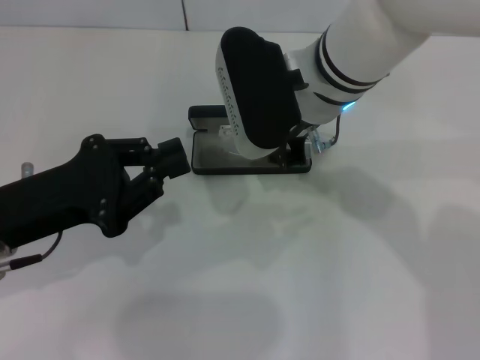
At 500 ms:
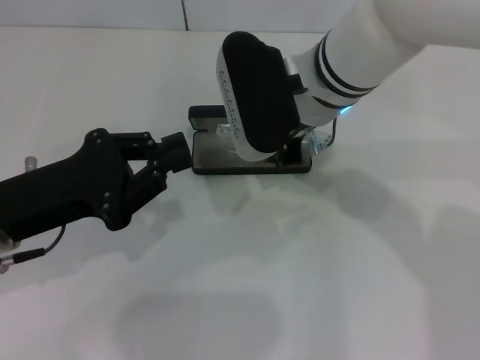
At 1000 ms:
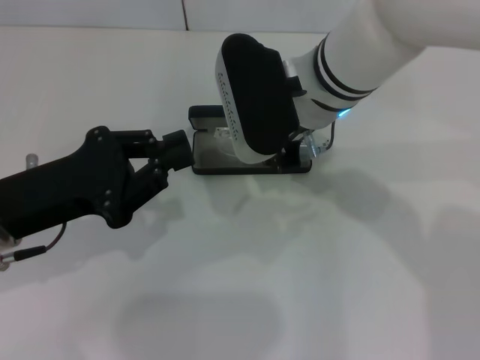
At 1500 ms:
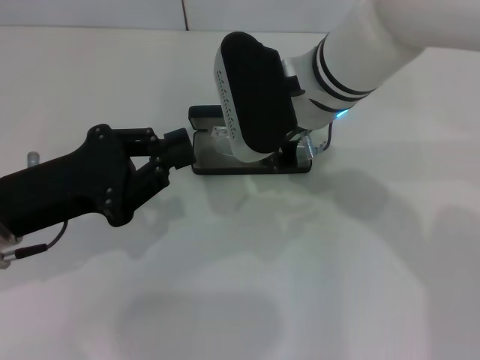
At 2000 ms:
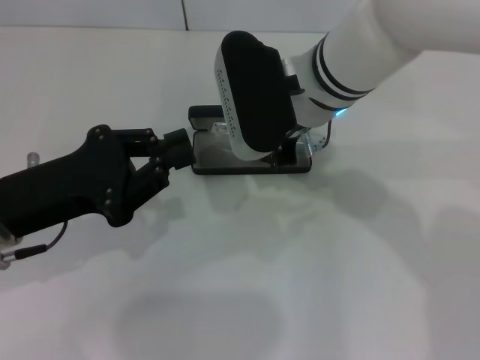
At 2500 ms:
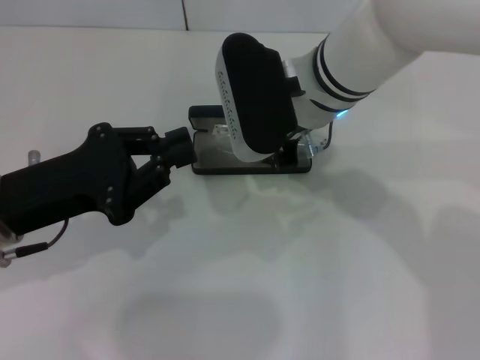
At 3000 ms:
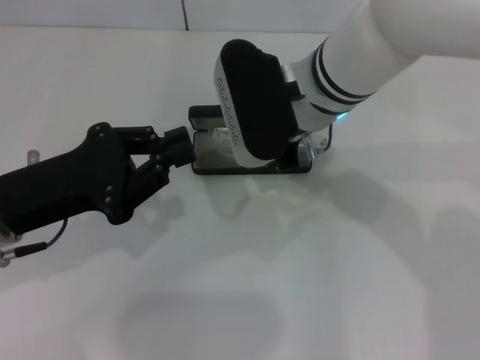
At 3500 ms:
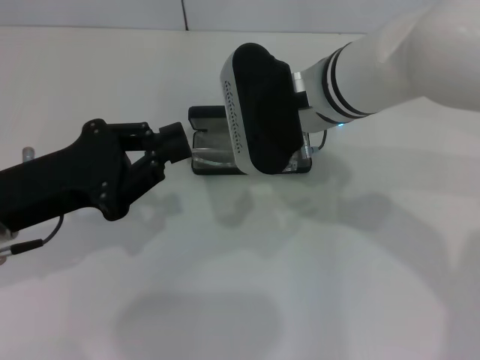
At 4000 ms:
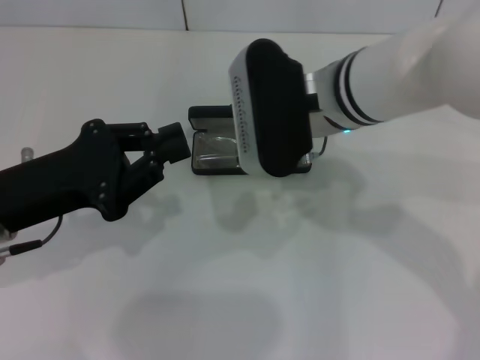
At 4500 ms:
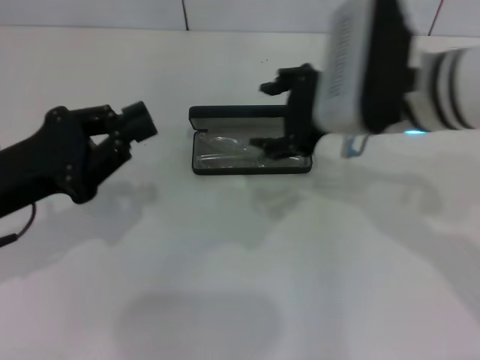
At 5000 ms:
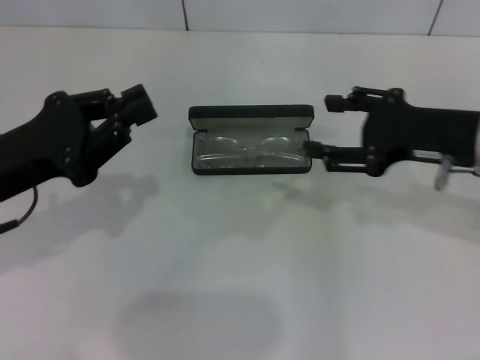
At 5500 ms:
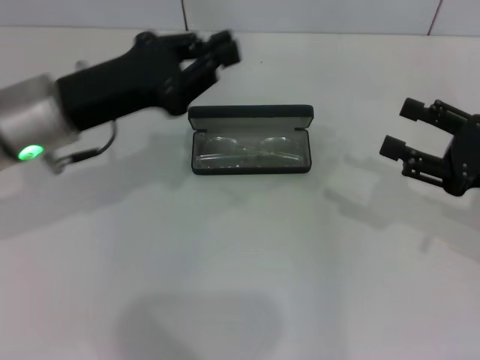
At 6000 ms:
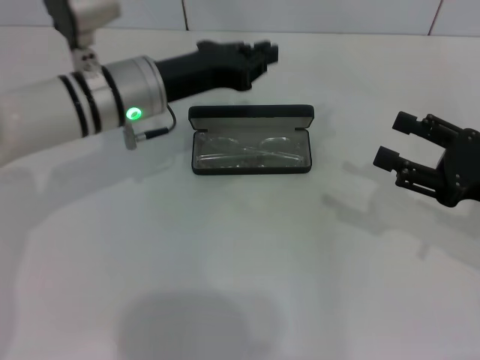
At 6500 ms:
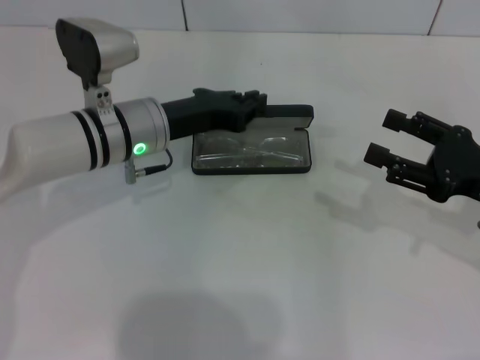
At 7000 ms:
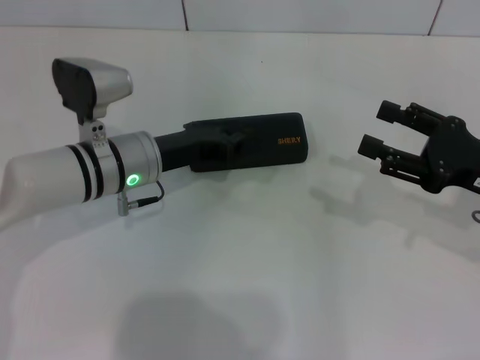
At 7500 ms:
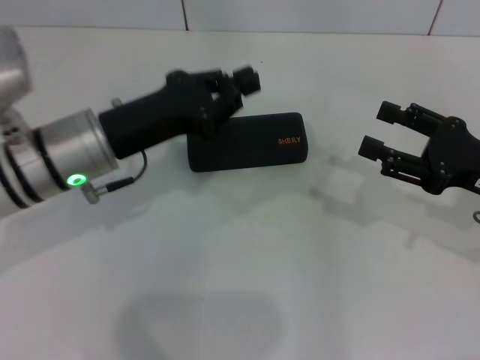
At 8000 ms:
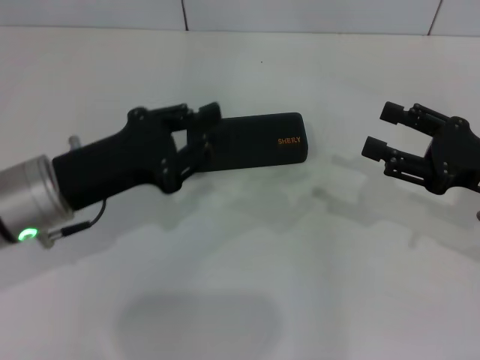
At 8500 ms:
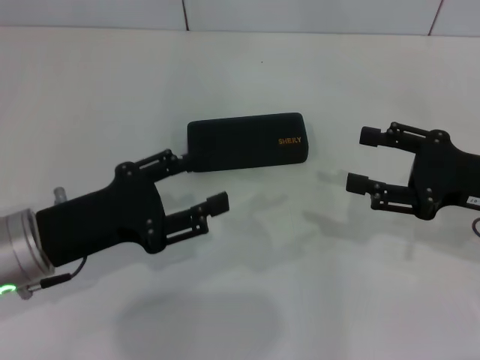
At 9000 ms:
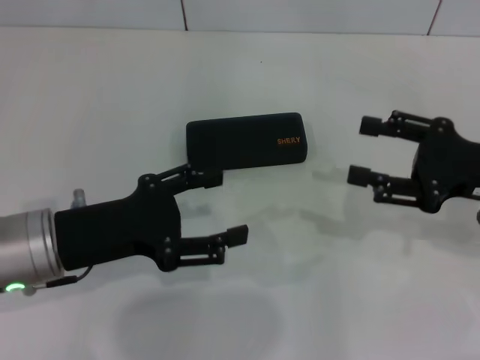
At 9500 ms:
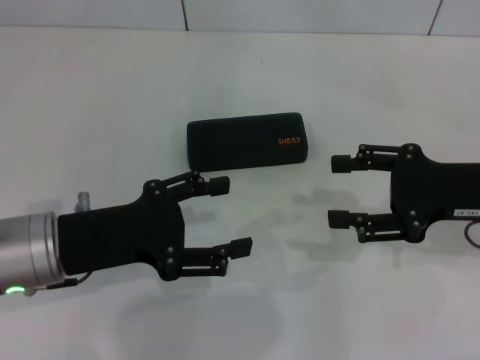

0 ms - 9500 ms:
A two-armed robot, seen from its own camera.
Step, 0 ms - 3500 ms: Put the glasses into the case with your right hand.
Step, 4000 ms - 7000 ms: Close the glasses case with your left hand.
0 ms - 2000 ms: The two grippers keep their place.
2000 ms - 4000 ms: The right gripper opens up.
4000 ms - 5500 ms: The right gripper is displaced to the right by some 25 cm. Meanwhile the left gripper moves forward, roughly 5 cm.
5500 ms - 7500 ms: The left gripper travels downward and back again, some 10 cm each way.
7500 ms - 9500 ms: The left gripper travels backward by about 5 cm, and opens.

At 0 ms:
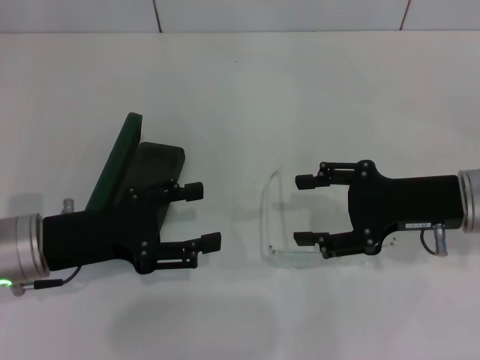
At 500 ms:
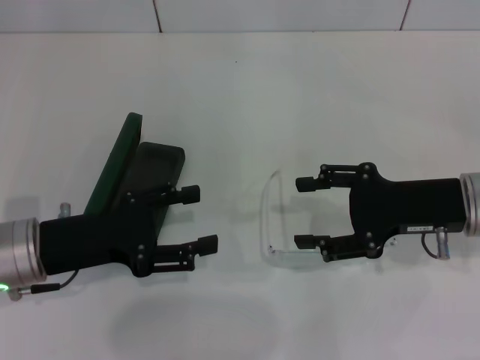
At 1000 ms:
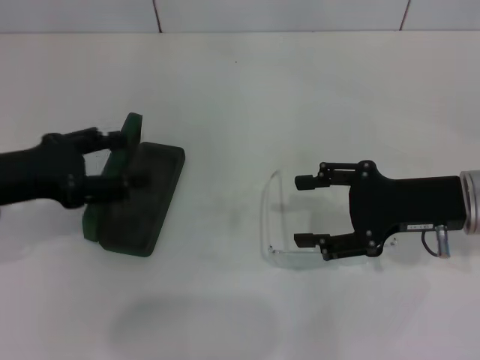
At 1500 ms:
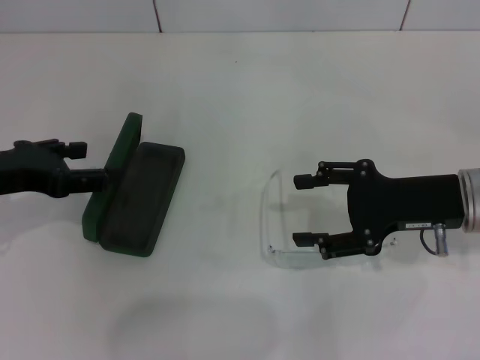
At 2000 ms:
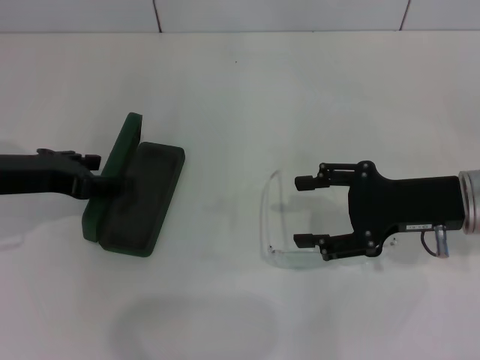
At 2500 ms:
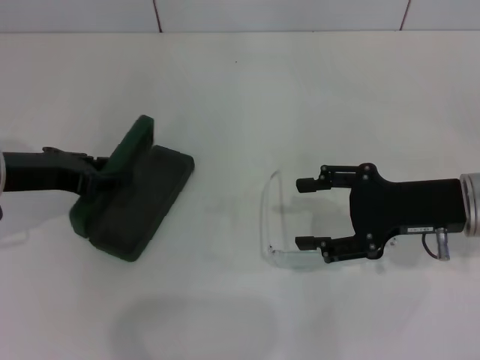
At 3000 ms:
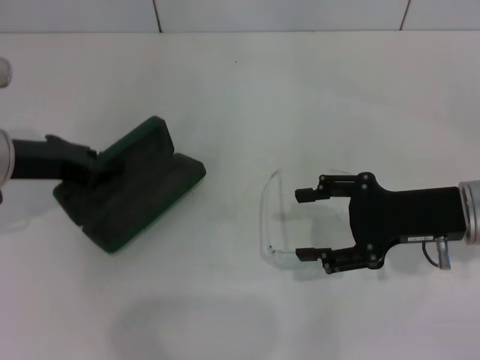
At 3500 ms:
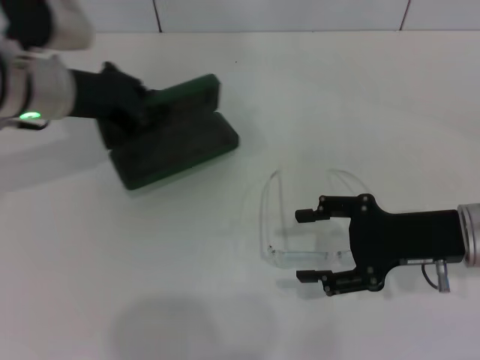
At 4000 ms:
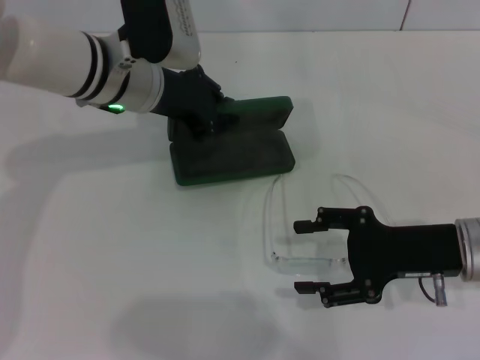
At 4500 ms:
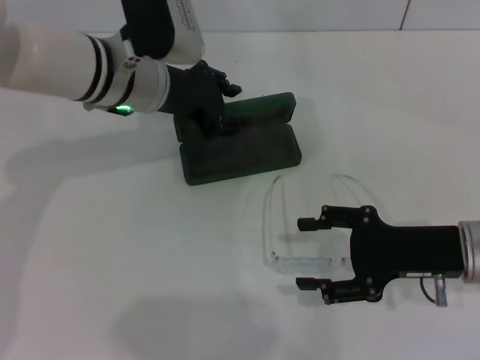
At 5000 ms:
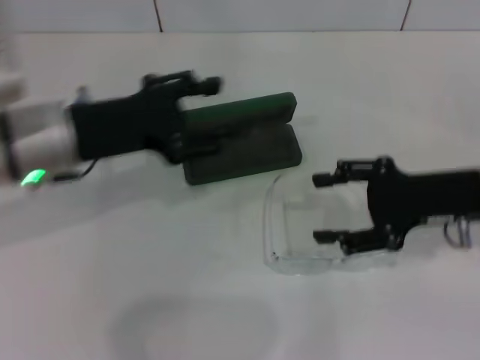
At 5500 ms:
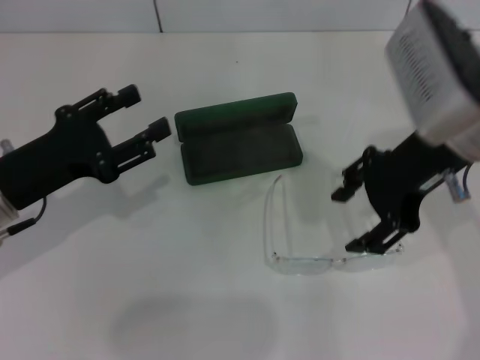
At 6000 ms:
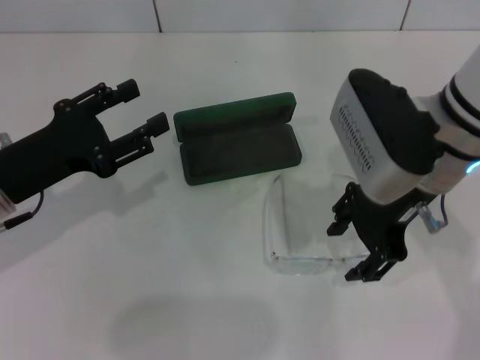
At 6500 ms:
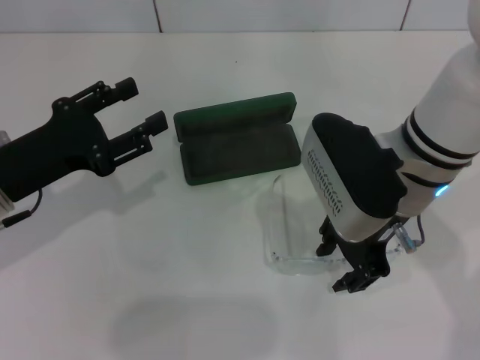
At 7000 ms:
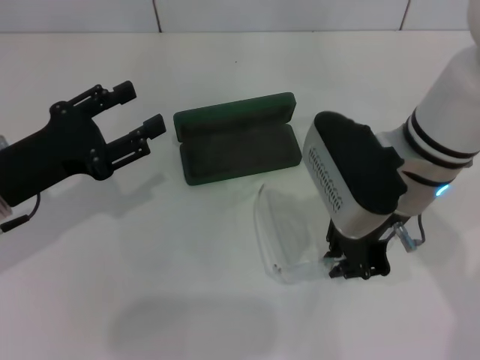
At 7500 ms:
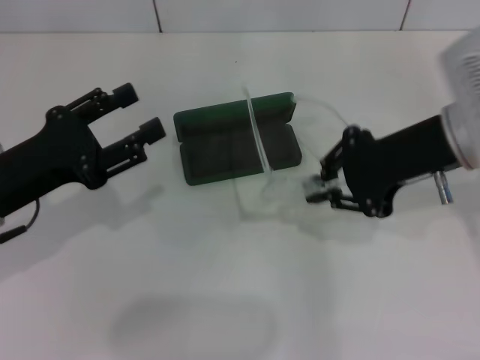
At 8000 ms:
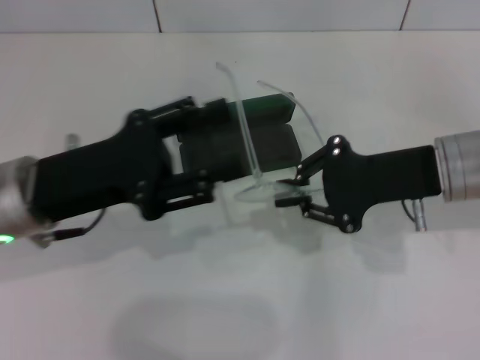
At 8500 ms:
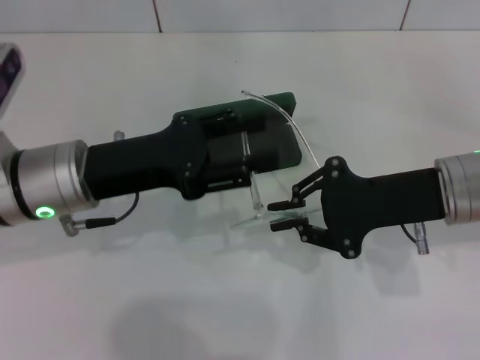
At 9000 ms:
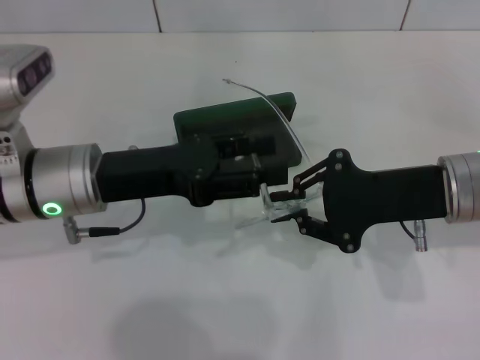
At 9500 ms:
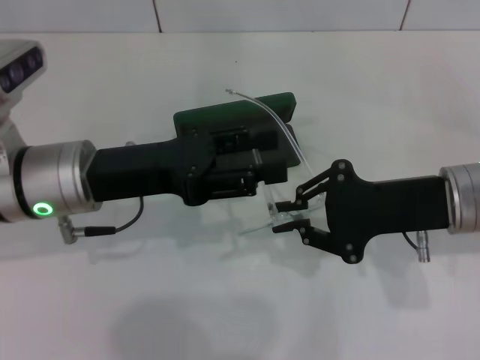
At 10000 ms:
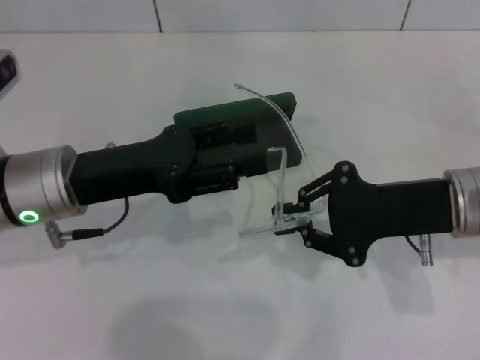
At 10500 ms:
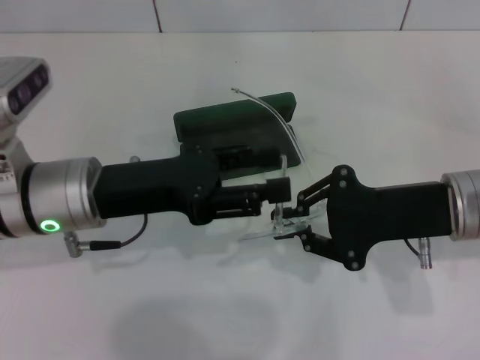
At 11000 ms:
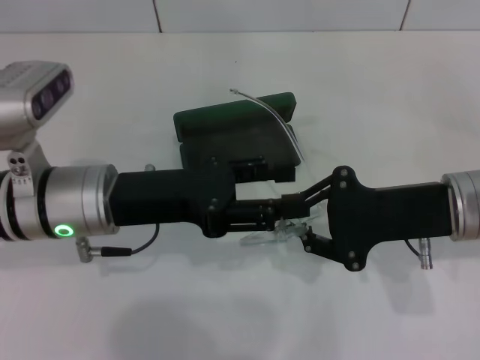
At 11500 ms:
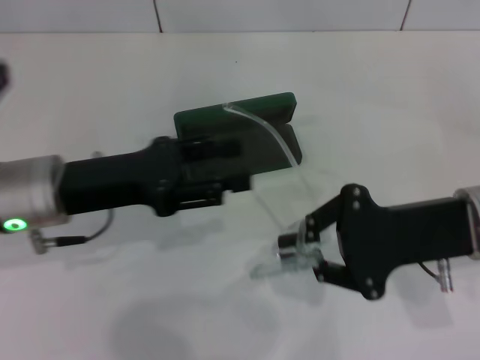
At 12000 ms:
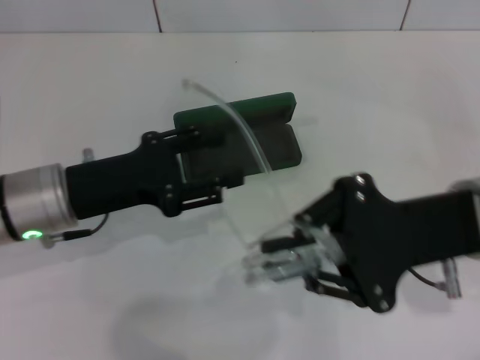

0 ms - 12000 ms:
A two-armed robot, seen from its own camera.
Step, 0 ms - 2500 ms: Grab the glasses case with your left hand.
Step, 3000 ms - 4000 ms: Place the glasses case in the center of the table with your left hand.
Step, 4500 ms - 6500 ms: Grab the eyeglass frame with your right hand.
0 ms - 2000 ms: The left gripper goes approximately 5 cm upward and forward.
2000 ms - 4000 ms: The left gripper heads to the right and forward, covering approximately 15 cm, and closes up.
4000 ms - 6000 ms: The left gripper heads backward and to the left, covering roughly 20 cm, and opens. Meanwhile the right gripper heads upward, to the left and forward, covering roughly 15 cm.
6000 ms - 8000 ms: Both grippers travel together to the right, some 5 cm. The right gripper closes up.

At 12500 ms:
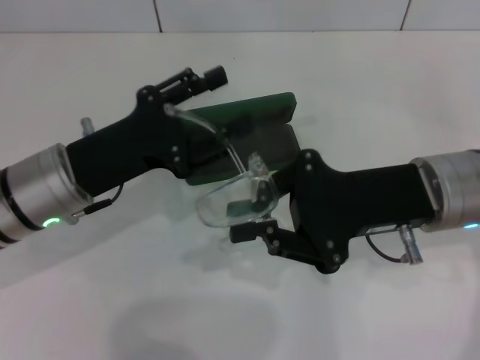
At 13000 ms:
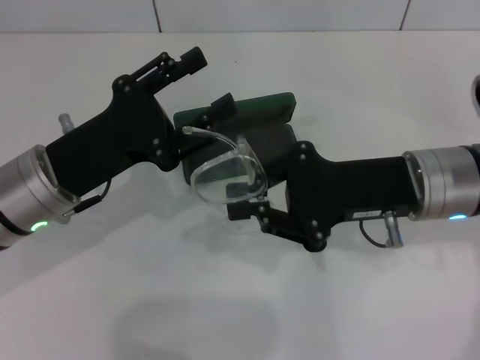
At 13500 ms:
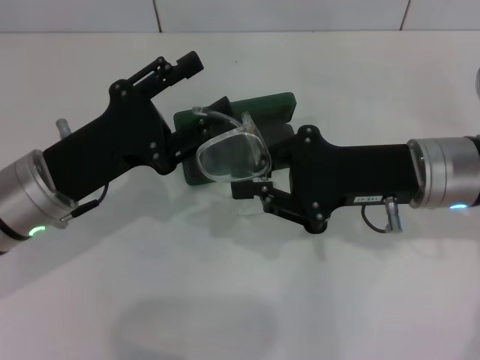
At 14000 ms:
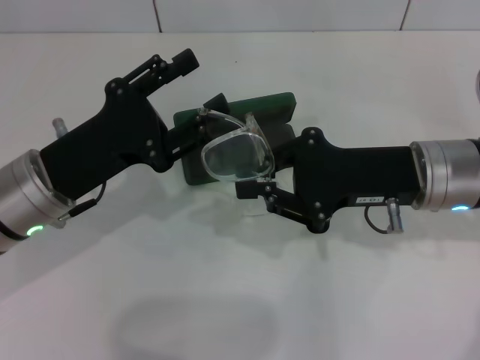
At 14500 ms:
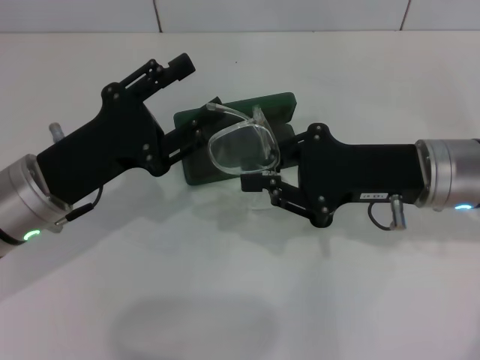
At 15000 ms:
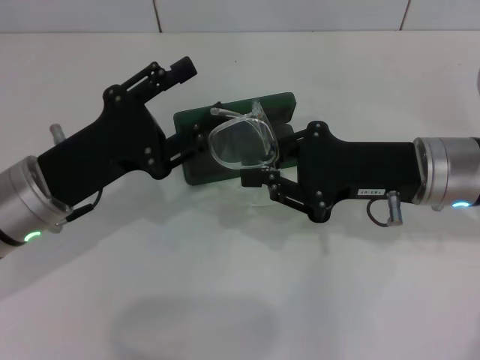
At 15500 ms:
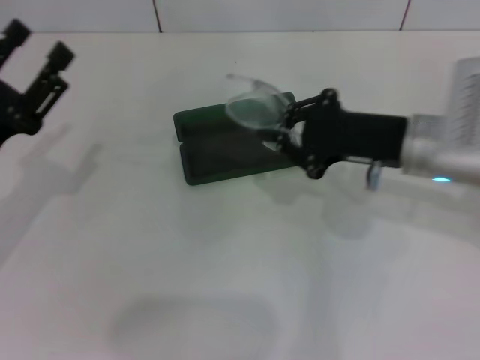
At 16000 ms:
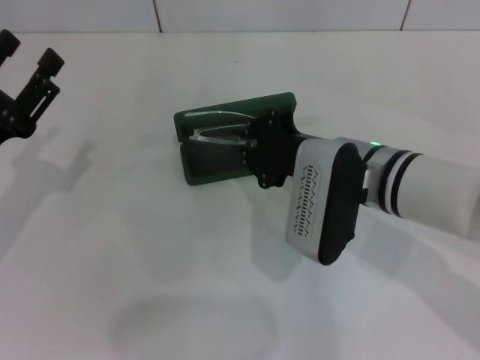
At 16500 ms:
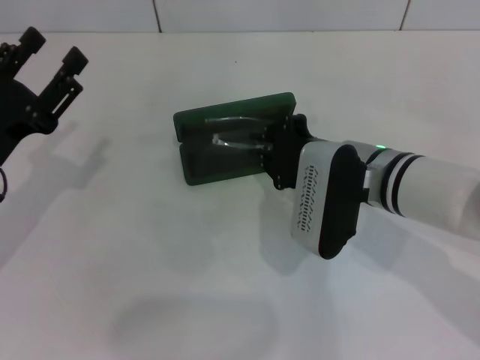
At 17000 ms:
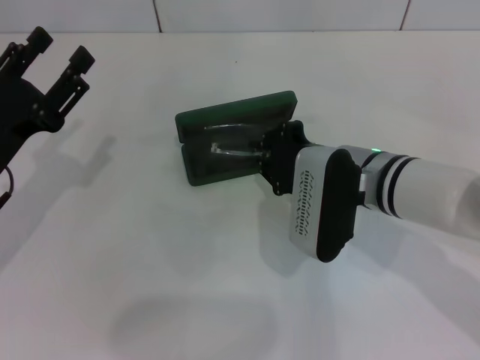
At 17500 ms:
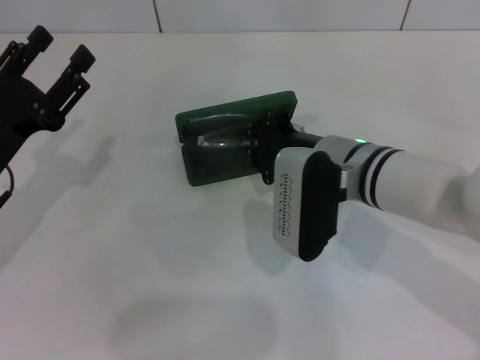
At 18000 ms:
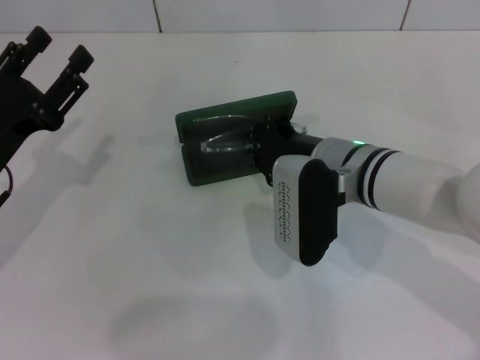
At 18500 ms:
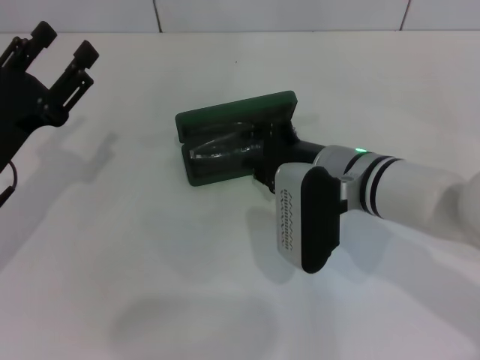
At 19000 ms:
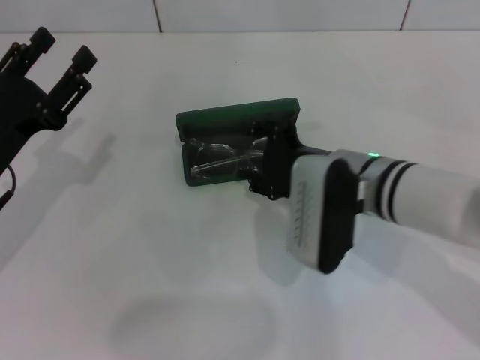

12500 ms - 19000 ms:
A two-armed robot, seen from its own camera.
Step, 12500 ms - 15000 ms: Fold the frame with your left hand.
Step, 15500 ms - 18500 ms: Put the glasses into the case with your right hand.
12500 ms - 14500 ms: The grippers move only a little.
14500 ms - 17000 ms: Both grippers move to the left, approximately 5 cm.
17000 ms - 19000 ms: The right gripper opens its fingers.
